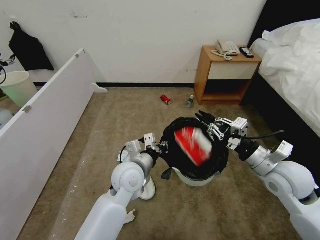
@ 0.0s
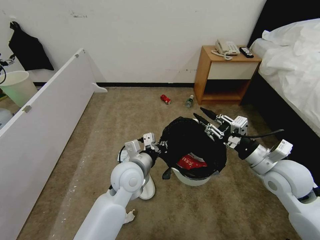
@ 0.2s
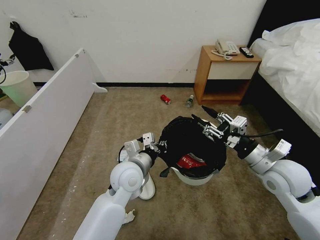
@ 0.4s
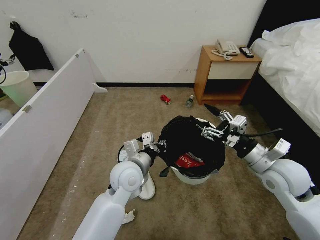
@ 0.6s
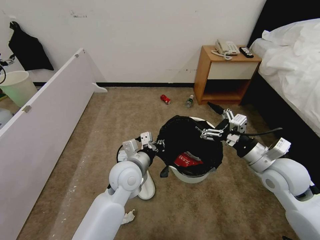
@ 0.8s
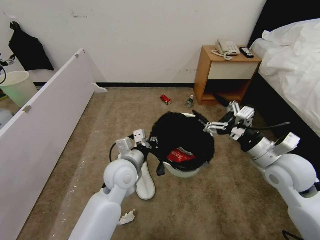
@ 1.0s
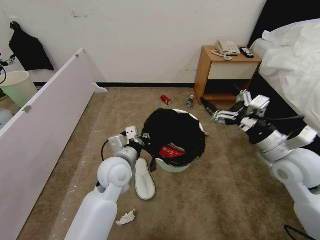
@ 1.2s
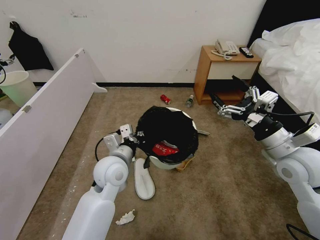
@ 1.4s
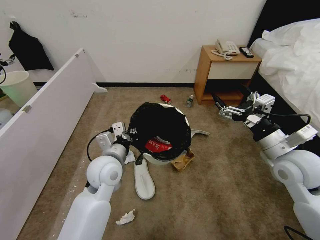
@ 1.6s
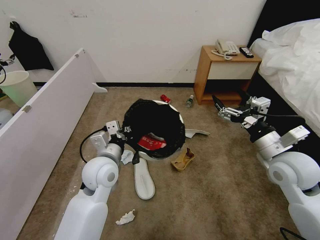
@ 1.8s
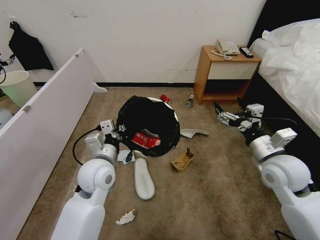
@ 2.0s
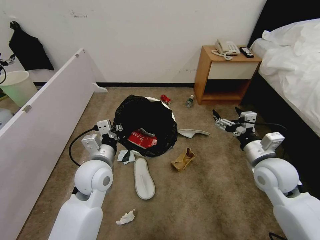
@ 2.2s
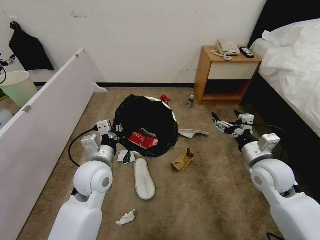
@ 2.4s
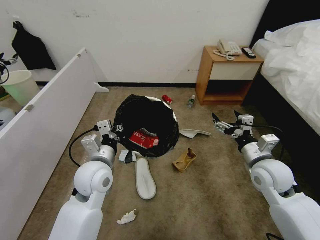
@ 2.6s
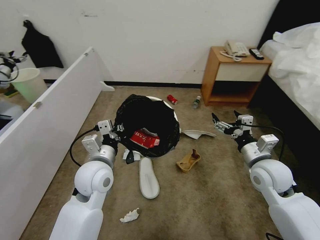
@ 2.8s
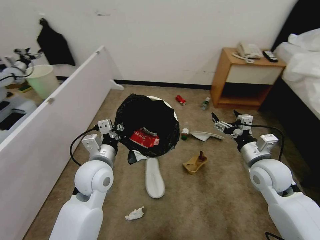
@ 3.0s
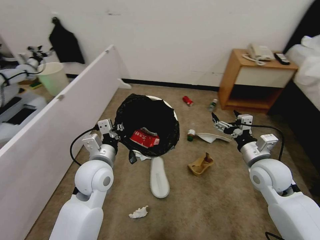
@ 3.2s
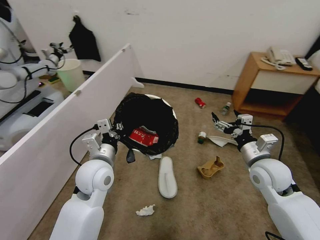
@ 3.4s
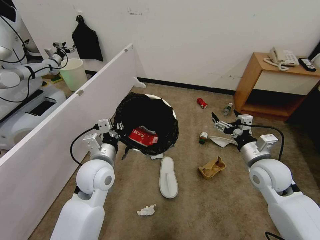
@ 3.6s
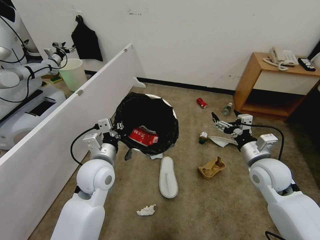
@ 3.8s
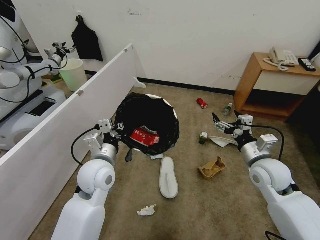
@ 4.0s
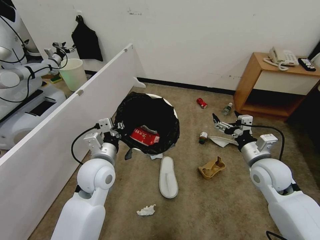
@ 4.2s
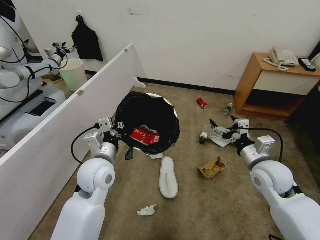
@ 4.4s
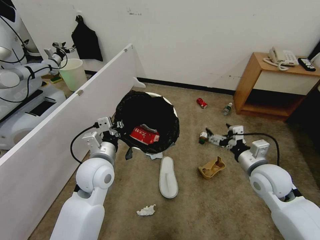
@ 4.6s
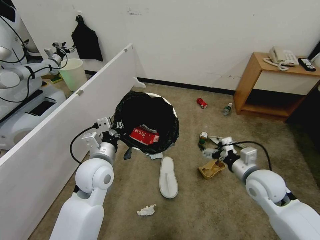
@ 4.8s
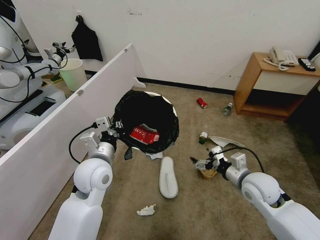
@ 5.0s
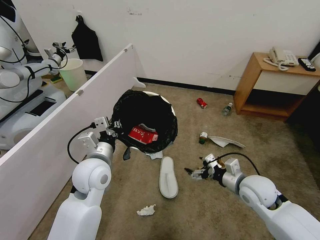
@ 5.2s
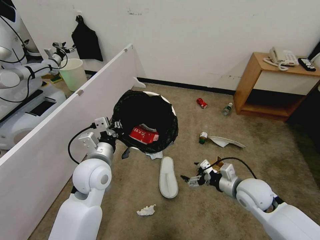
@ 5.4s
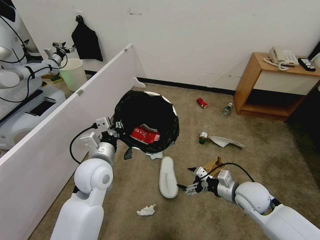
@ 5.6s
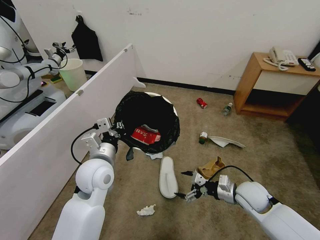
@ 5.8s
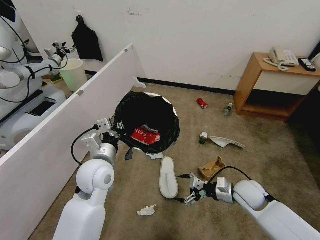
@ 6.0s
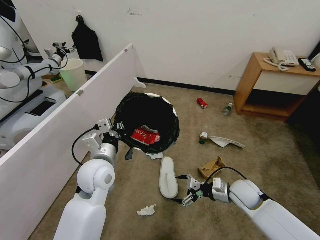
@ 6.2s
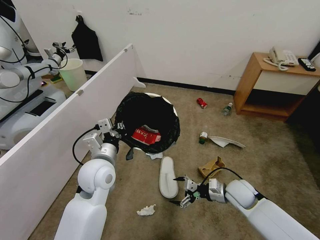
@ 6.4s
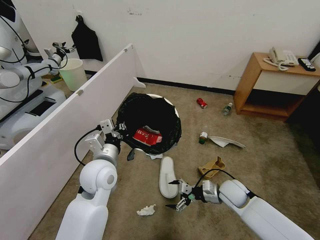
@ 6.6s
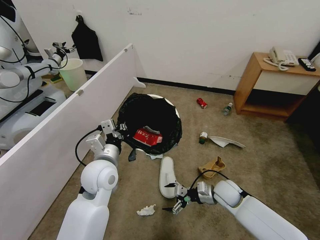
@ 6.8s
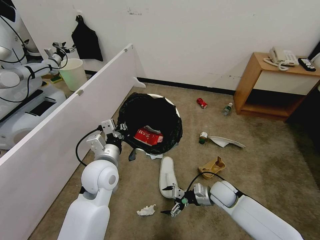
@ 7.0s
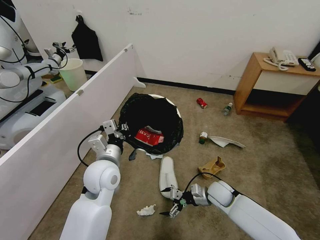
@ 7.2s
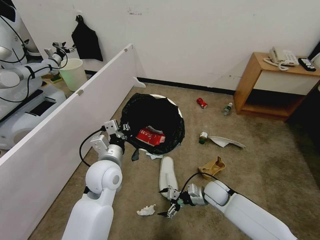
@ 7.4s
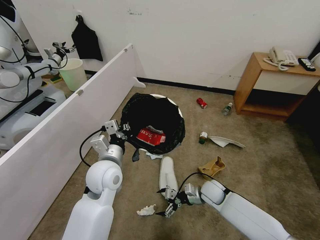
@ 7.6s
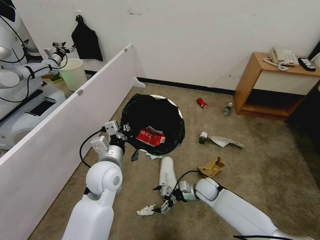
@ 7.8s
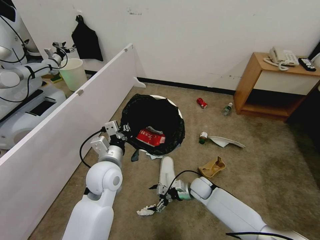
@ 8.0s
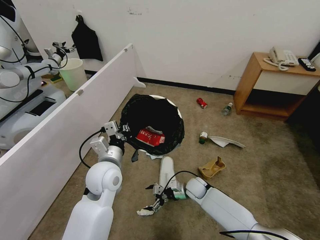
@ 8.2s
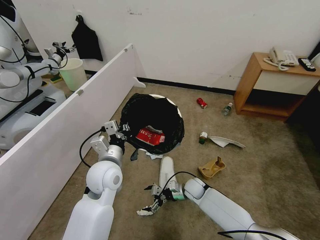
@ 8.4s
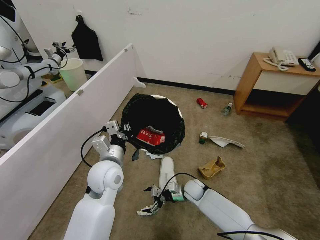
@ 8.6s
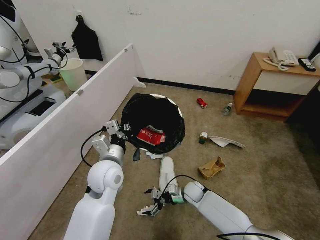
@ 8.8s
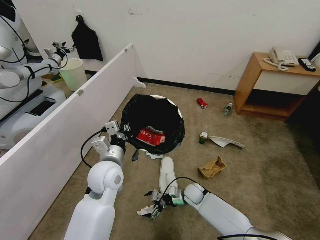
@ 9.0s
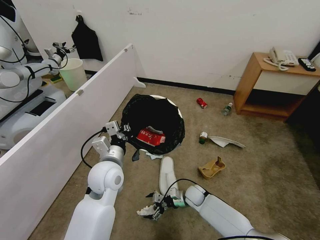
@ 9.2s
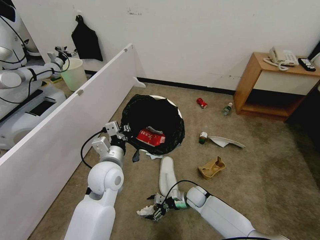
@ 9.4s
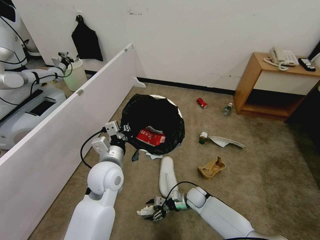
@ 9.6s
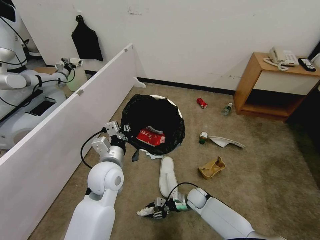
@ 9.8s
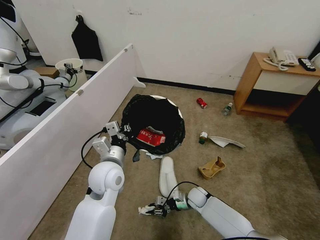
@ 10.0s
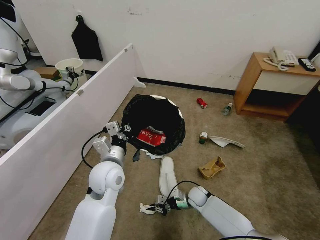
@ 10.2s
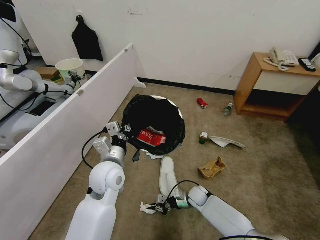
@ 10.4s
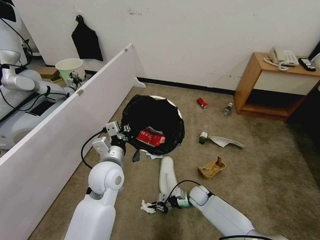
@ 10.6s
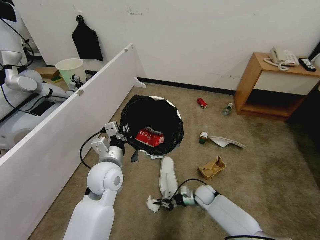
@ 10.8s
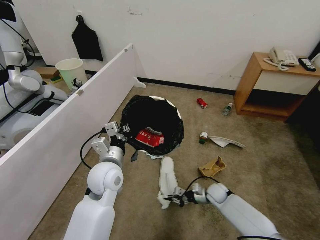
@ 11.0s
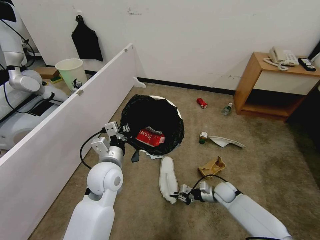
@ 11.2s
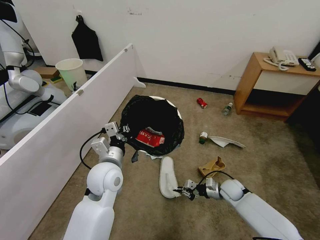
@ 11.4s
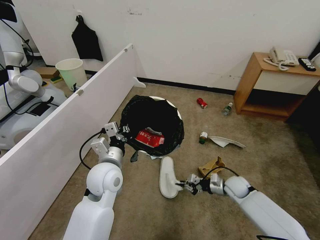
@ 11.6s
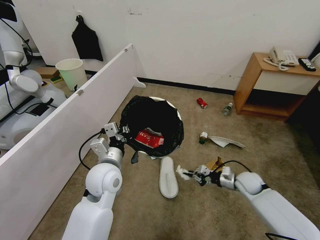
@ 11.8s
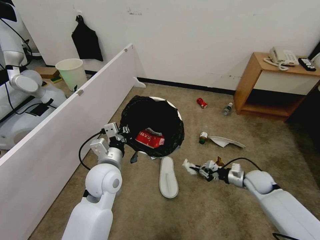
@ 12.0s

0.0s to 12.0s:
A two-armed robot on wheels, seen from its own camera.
Task of the whole recording: Pick up the trash bin, then pick up the garbage from the floor and place it into the trash bin.
0.0s to 1.6s: The right gripper opens. Meanwhile the left gripper travels to the left by approximately 5 cm.
1.6s to 3.0s: The right gripper moves downward, roughly 5 cm.
4.4s to 6.0s: The right gripper is displaced downward by about 15 cm.
6.0s to 7.6s: The right gripper travels downward and to the left by some 15 cm.
7.6s to 9.0s: The right gripper heads downward and to the left, covering some 10 cm.
9.0s to 10.4s: The right gripper closes its fingers.
10.4s to 12.0s: The right gripper heads to the right and upward, covering approximately 25 cm.

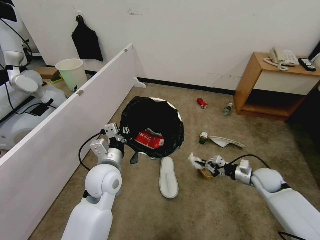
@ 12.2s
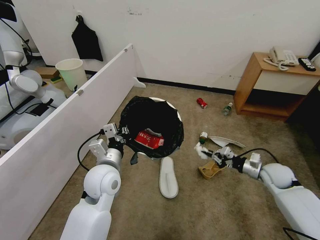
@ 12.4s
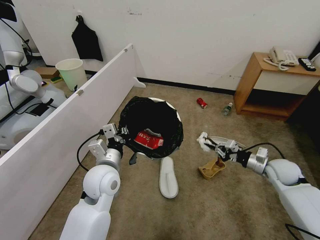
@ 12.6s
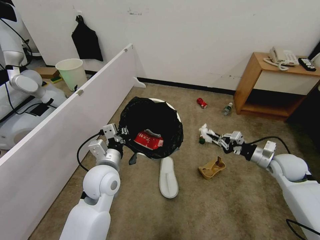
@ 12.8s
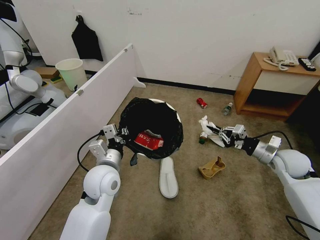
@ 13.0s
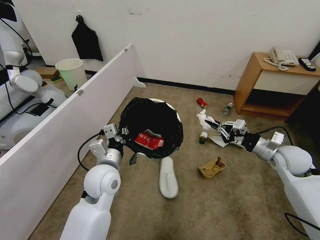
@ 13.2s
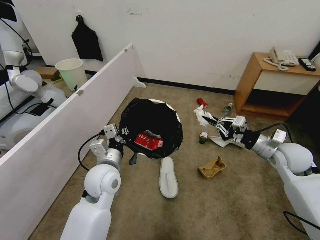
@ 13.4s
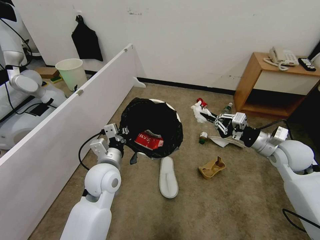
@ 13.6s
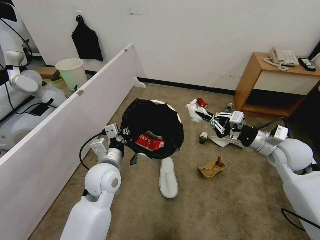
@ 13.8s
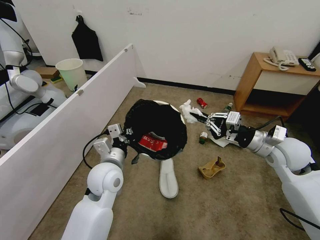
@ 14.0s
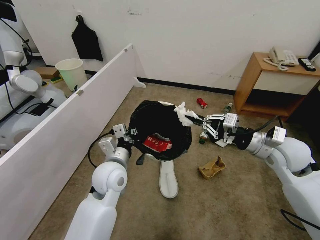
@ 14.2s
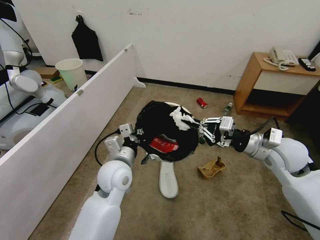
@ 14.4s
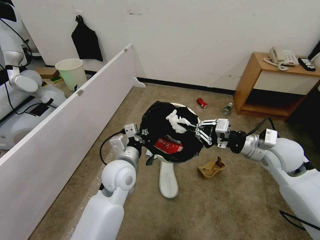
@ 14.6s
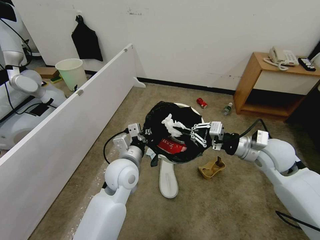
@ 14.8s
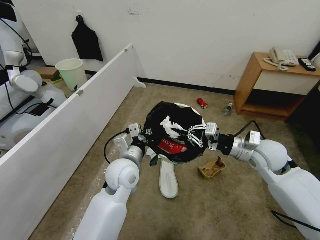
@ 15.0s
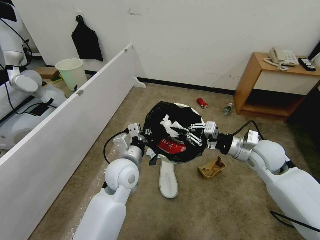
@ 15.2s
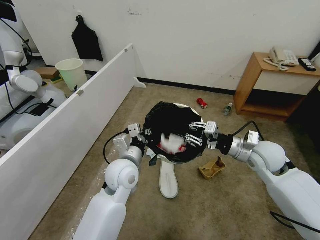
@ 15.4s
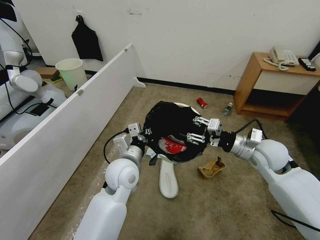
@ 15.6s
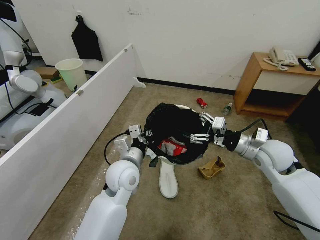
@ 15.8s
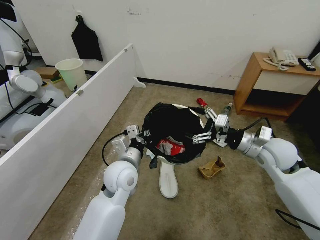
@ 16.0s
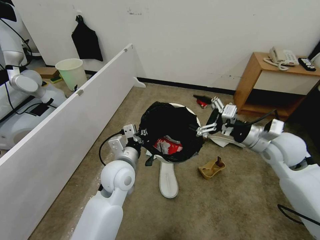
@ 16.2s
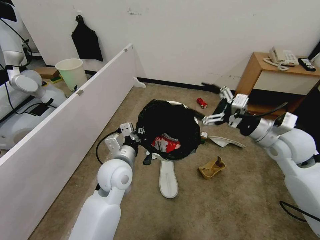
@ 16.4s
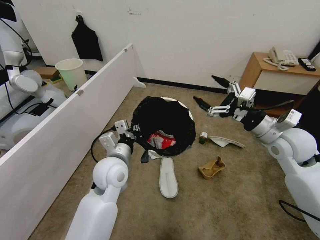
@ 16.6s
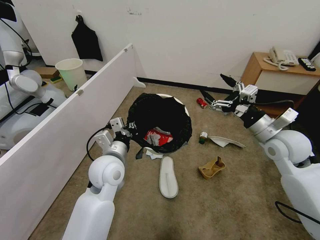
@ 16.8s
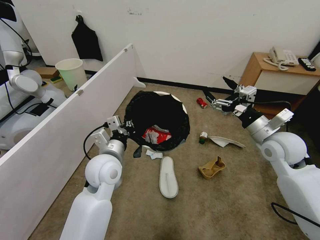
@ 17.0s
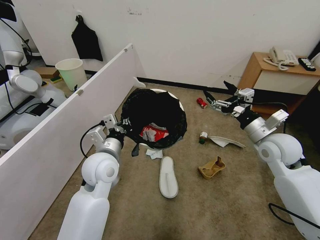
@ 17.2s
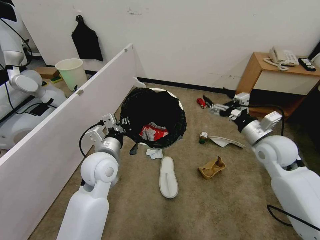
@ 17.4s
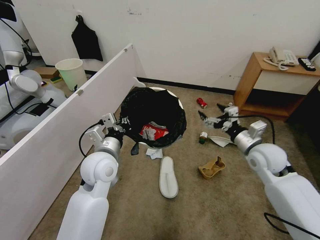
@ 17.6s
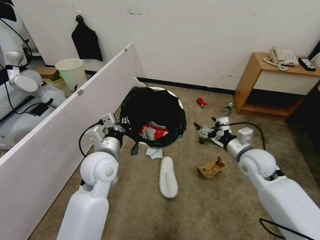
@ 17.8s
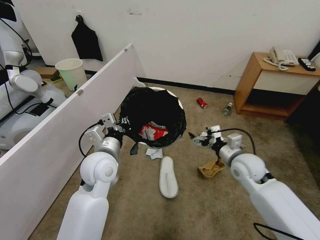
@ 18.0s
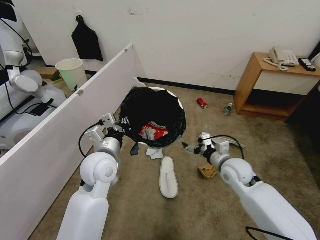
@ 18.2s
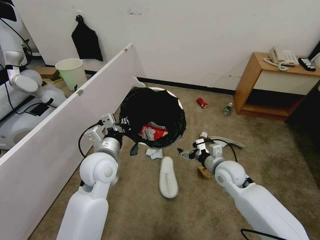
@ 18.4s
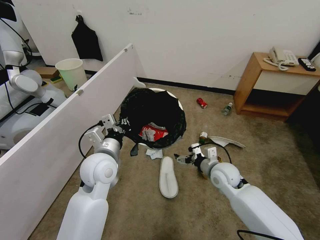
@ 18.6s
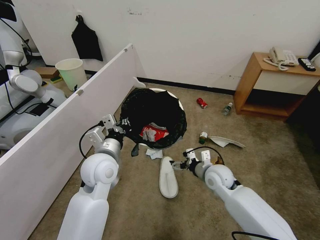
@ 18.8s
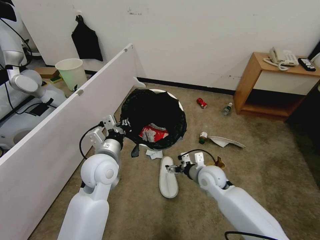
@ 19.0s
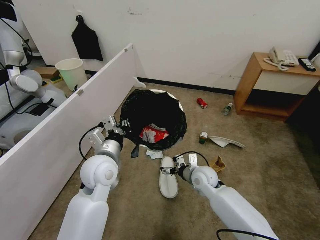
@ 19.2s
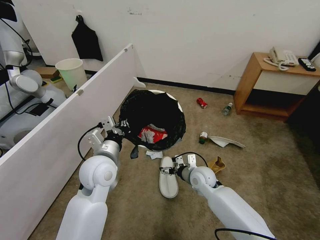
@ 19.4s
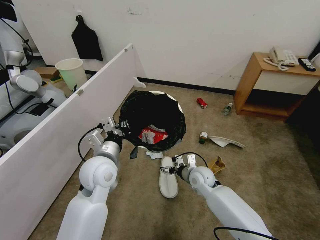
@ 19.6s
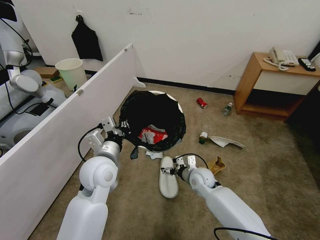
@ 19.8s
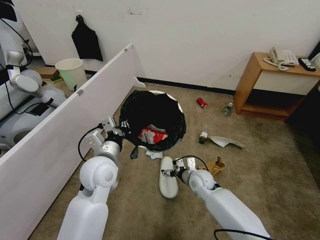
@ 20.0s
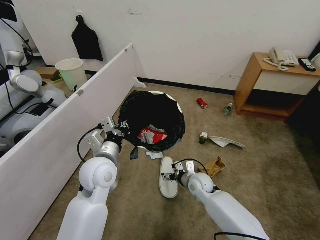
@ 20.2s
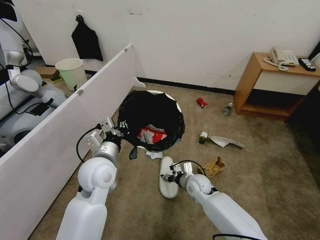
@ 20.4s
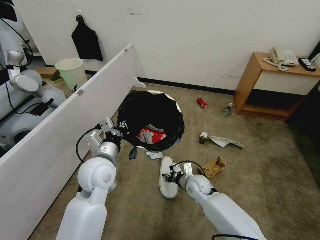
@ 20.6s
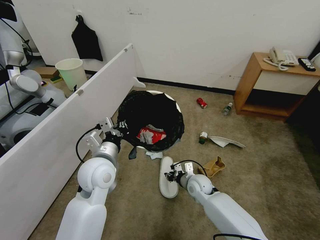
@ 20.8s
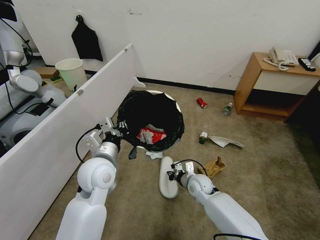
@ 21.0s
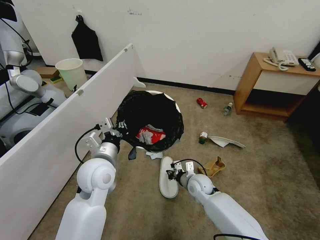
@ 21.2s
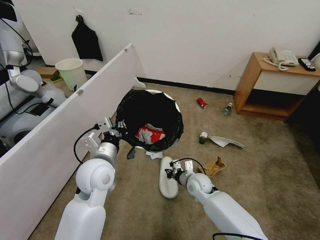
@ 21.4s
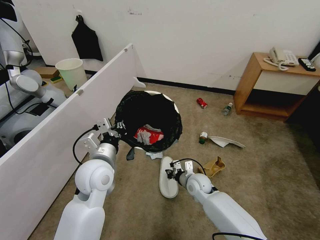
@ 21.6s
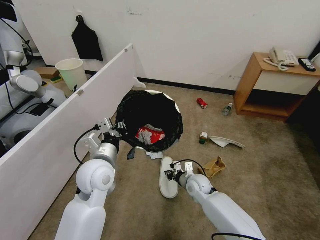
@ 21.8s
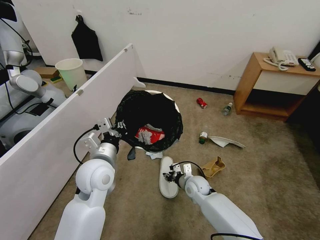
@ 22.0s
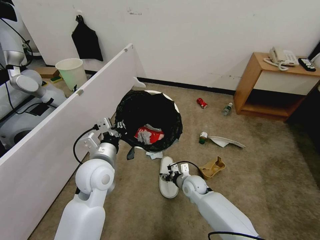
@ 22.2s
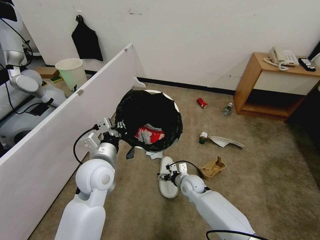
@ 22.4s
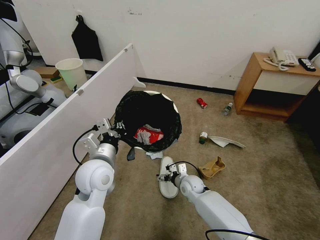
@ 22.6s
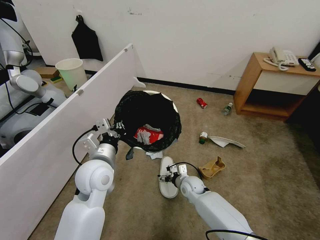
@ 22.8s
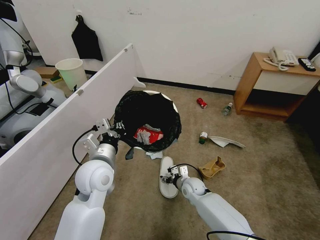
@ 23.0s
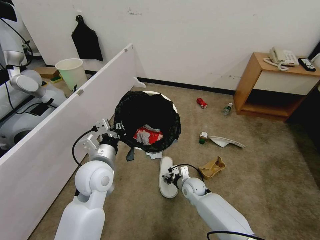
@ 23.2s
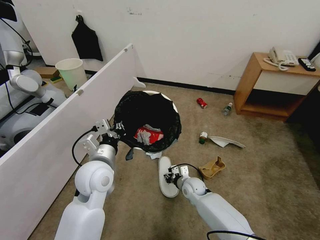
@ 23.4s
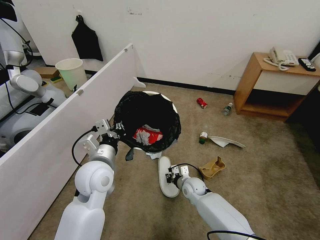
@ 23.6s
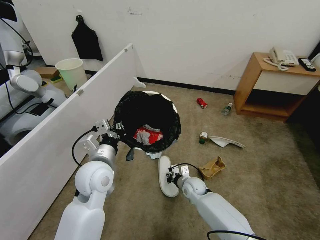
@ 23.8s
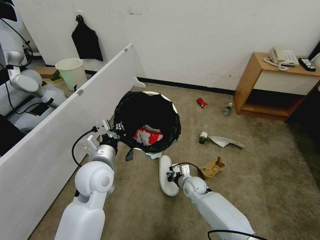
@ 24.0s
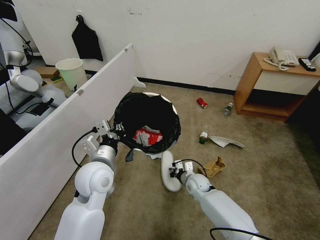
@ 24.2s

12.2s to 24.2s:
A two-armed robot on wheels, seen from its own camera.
Task of the whole recording: Pick up the trash bin, then pick up the garbage from the floor and place it into the trash bin.
12.2s to 13.8s: The right gripper goes some 20 cm upward.
13.8s to 15.2s: The left gripper moves to the right, approximately 5 cm, while the right gripper shifts some 5 cm to the left.
15.2s to 16.6s: The right gripper shifts roughly 5 cm upward, and opens up.
16.6s to 18.2s: The right gripper moves downward and to the left, approximately 15 cm.
18.2s to 19.8s: The right gripper shifts approximately 15 cm downward and to the left.
19.8s to 21.2s: The right gripper closes up.
21.2s to 22.6s: The right gripper opens.
22.6s to 24.2s: The right gripper closes up.
